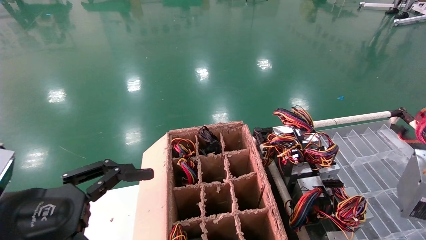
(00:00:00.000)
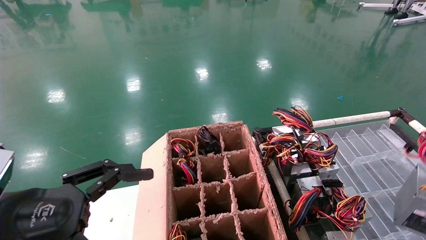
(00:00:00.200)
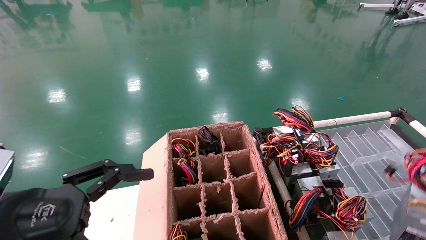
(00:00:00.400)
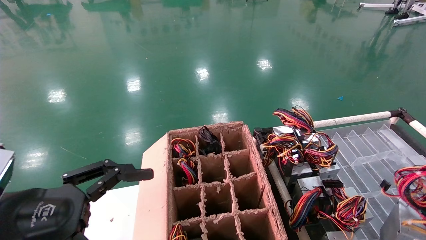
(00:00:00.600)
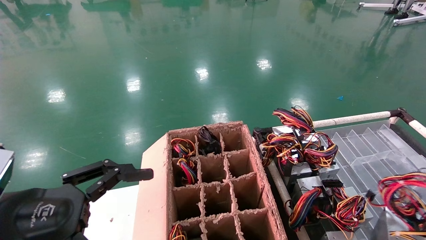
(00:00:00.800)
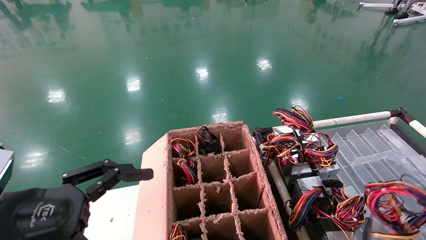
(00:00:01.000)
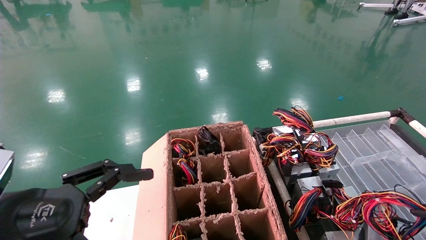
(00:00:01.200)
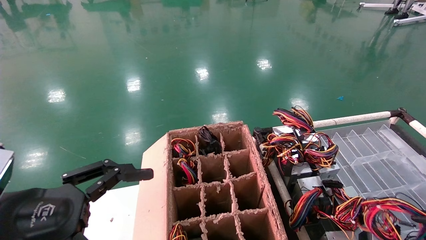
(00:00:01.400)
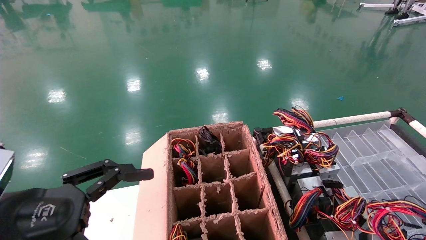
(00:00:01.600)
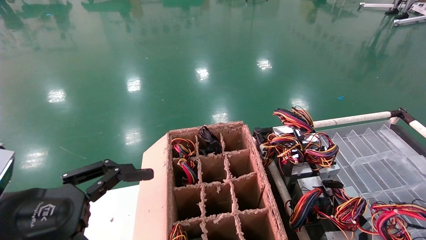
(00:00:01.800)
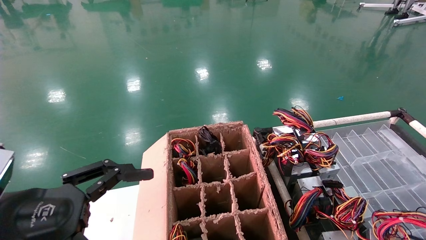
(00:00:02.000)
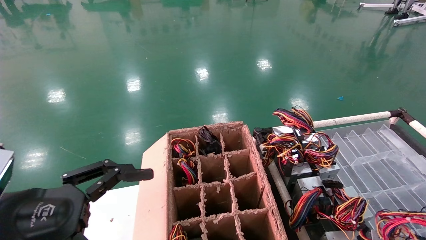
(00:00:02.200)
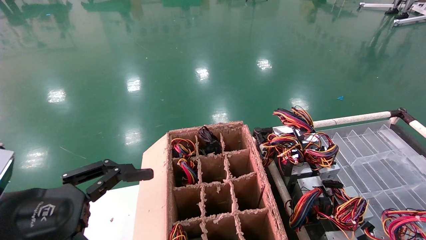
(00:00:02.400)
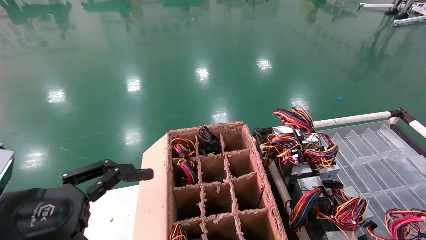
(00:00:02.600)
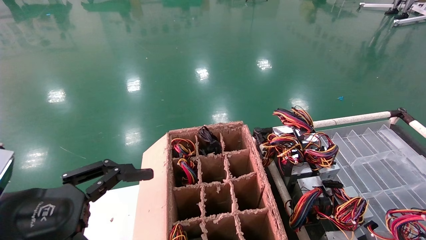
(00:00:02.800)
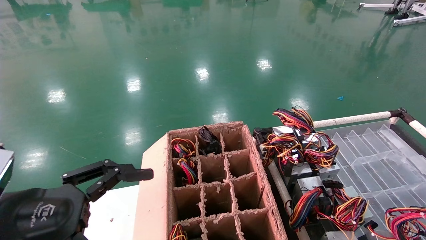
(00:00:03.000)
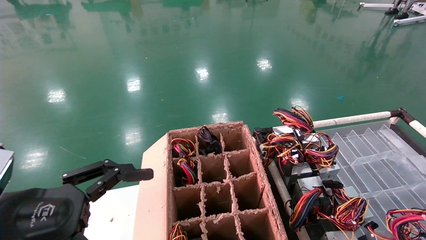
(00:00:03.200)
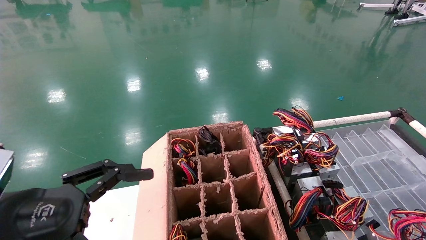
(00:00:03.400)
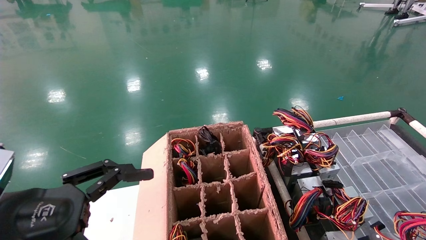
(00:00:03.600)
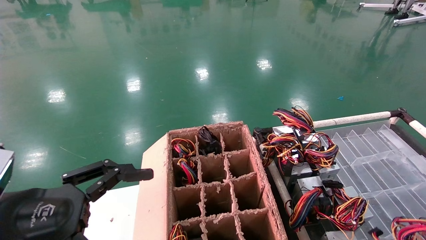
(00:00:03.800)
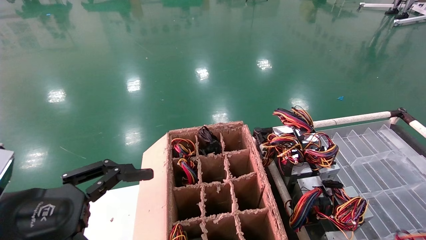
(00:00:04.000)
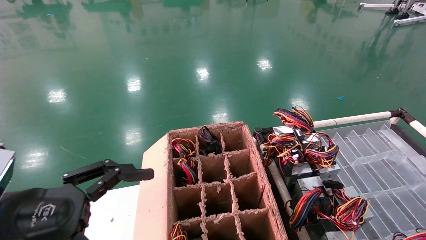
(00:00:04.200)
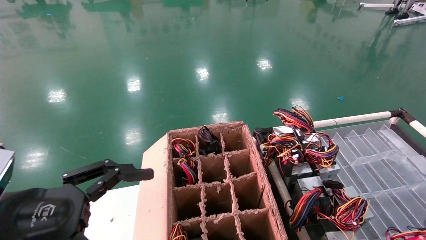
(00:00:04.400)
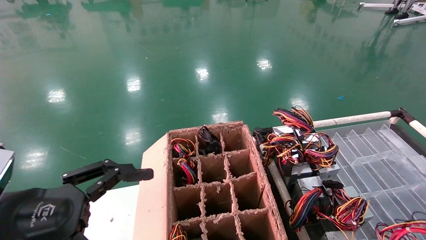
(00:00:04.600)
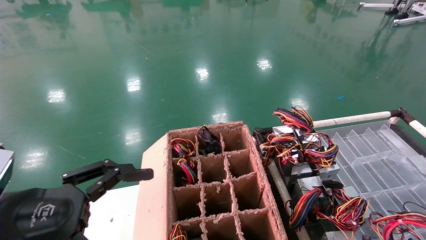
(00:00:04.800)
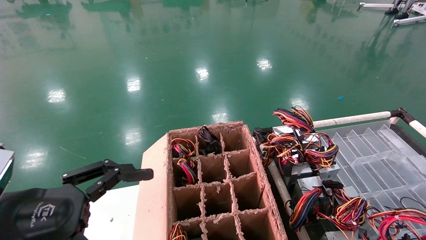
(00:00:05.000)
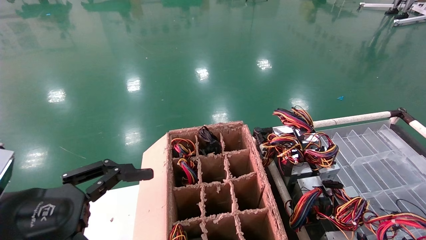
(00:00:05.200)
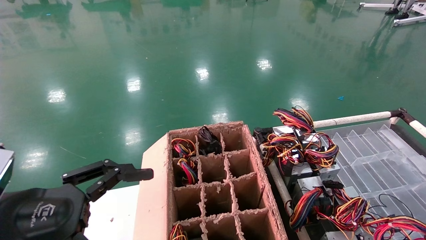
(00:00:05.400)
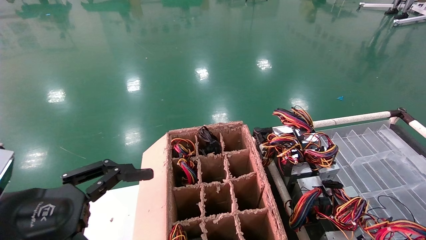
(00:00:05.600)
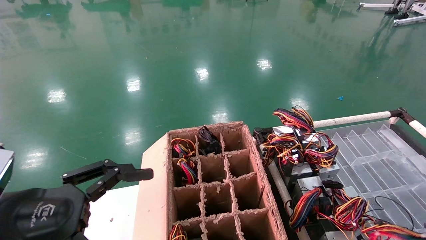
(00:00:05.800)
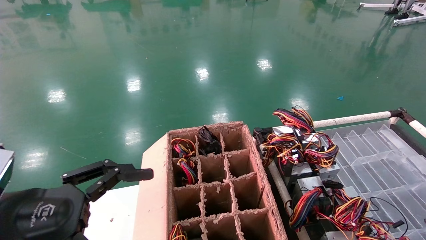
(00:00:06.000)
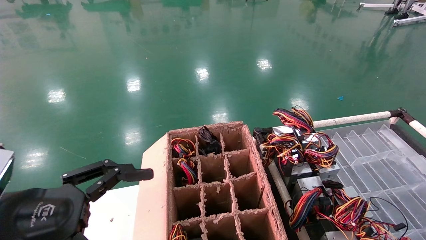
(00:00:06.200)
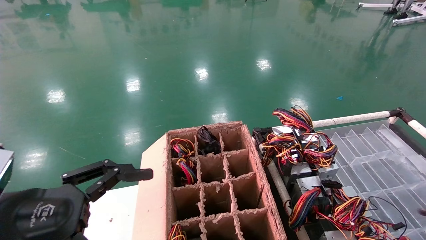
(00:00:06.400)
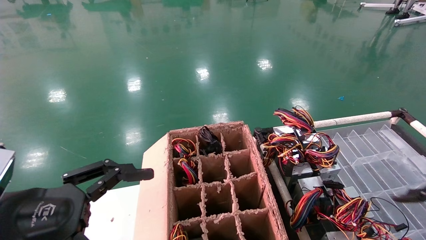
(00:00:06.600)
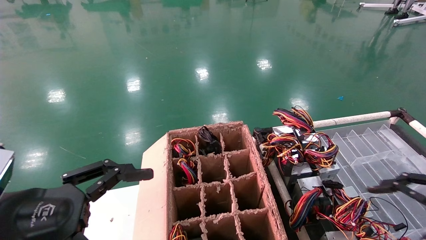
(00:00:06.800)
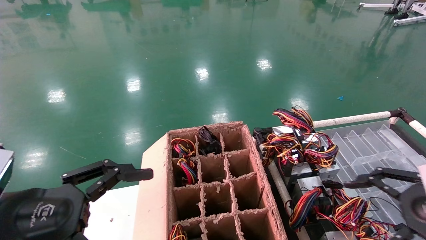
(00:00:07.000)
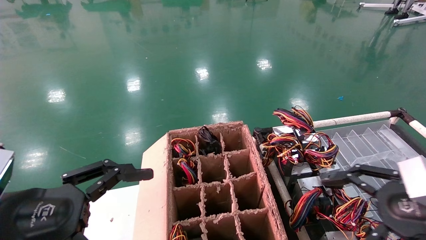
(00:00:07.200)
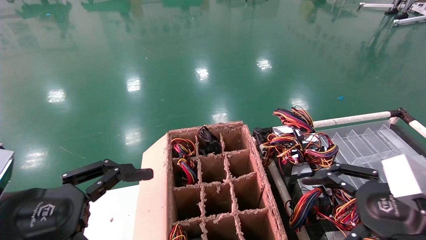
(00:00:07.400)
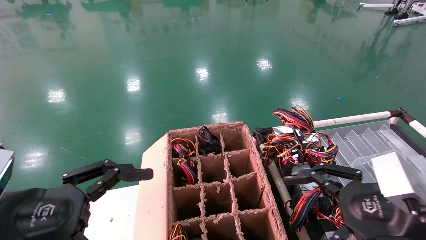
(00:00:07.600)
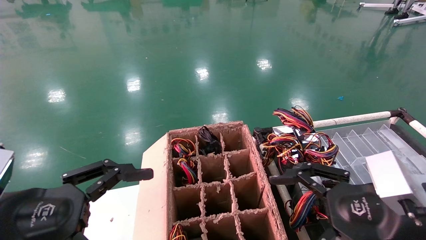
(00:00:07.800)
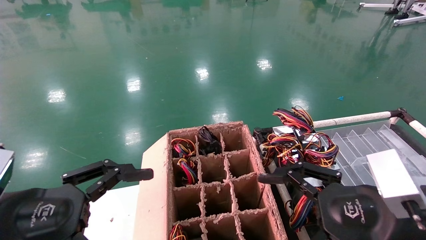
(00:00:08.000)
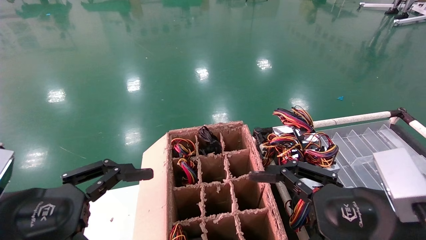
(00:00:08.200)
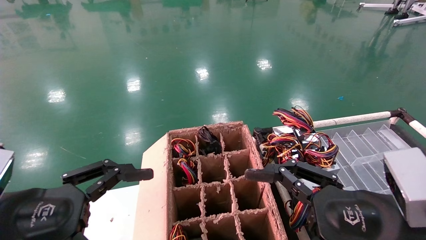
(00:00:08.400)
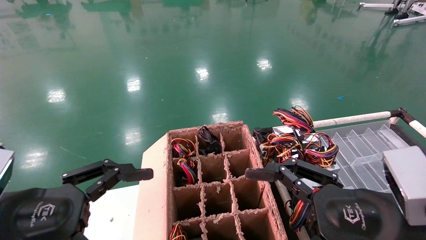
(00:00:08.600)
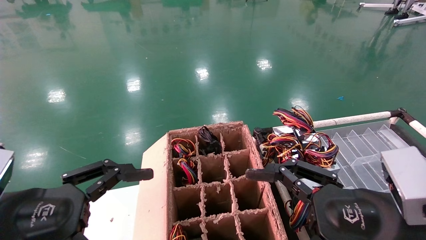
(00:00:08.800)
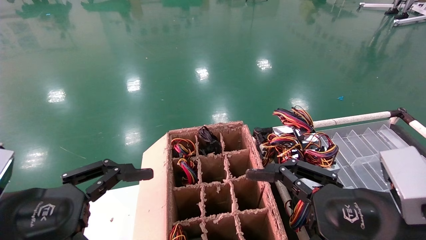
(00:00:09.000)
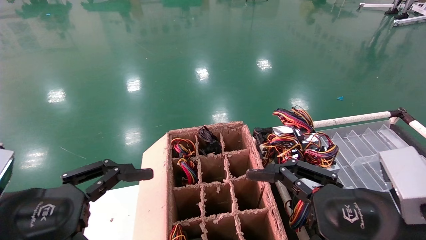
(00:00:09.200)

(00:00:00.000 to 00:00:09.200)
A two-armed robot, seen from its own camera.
Step, 00:00:00.000 - 00:00:05.800: Place the power supply on the operating table.
00:00:00.000 - 00:00:01.600: The right gripper moves downward, approximately 10 cm.
00:00:01.600 - 00:00:03.000: The right gripper moves roughly 5 cm.
00:00:03.000 - 00:00:04.600: The grippers make only small movements.
00:00:04.600 - 00:00:06.200: The right gripper opens.
00:00:06.200 - 00:00:07.600: The right gripper is displaced to the left by roughly 20 cm, and opens its fingers.
00:00:07.600 - 00:00:09.200: The right gripper heads to the left, covering some 5 cm.
